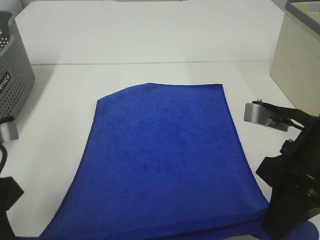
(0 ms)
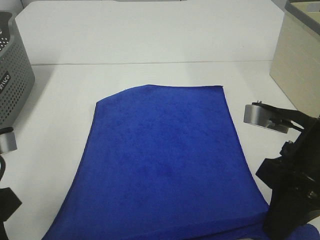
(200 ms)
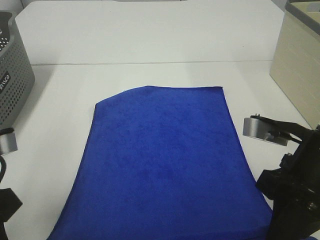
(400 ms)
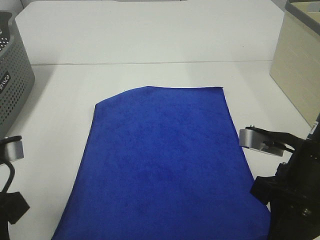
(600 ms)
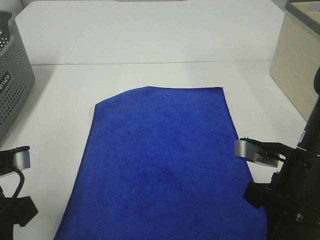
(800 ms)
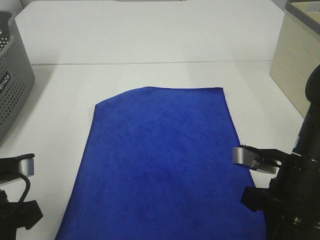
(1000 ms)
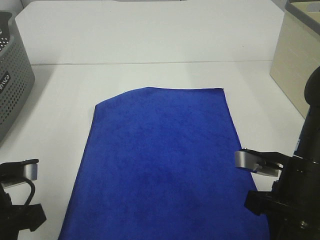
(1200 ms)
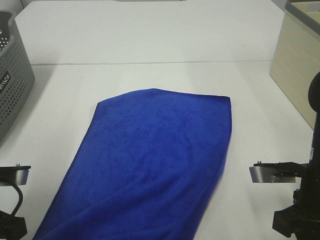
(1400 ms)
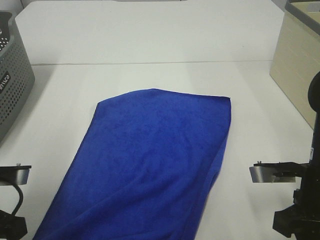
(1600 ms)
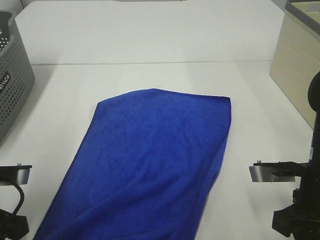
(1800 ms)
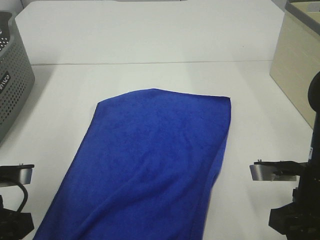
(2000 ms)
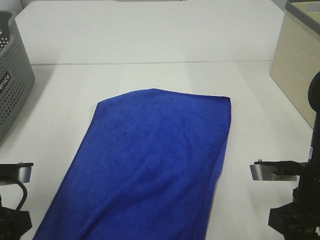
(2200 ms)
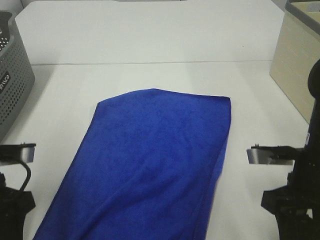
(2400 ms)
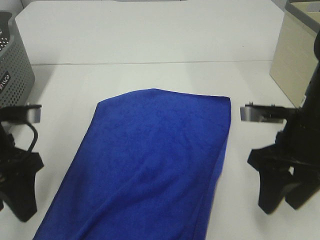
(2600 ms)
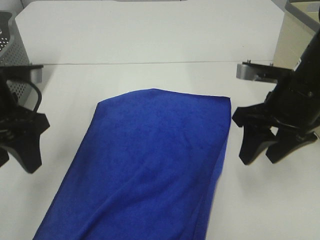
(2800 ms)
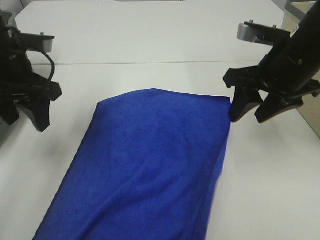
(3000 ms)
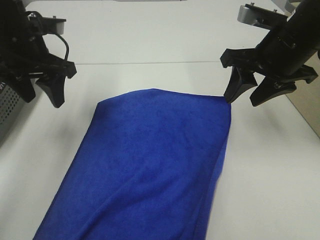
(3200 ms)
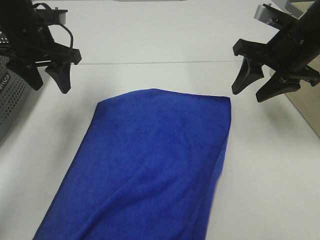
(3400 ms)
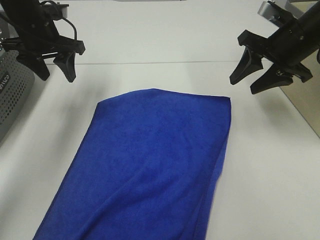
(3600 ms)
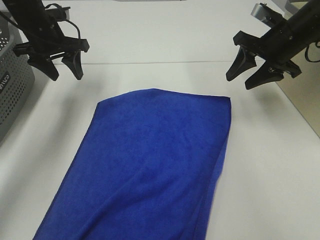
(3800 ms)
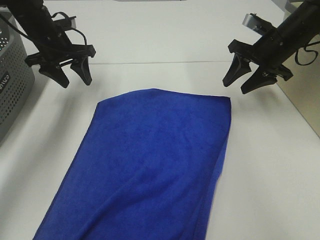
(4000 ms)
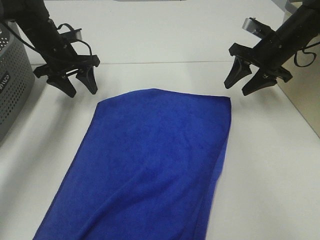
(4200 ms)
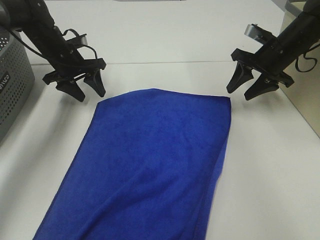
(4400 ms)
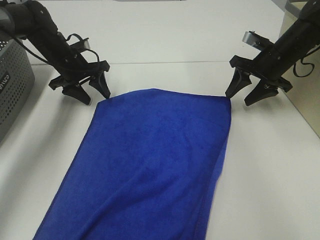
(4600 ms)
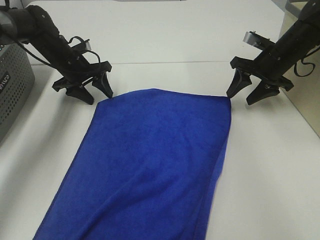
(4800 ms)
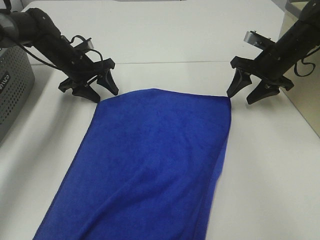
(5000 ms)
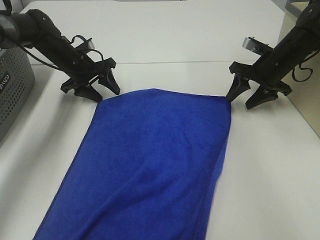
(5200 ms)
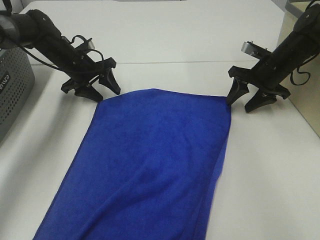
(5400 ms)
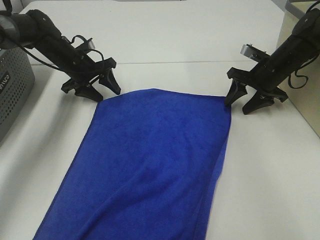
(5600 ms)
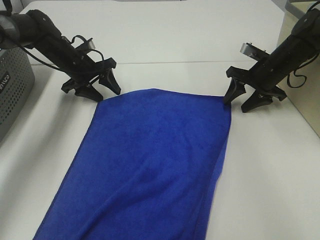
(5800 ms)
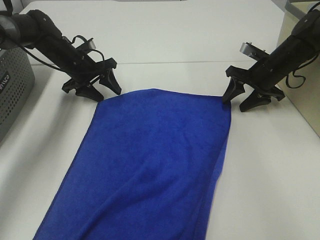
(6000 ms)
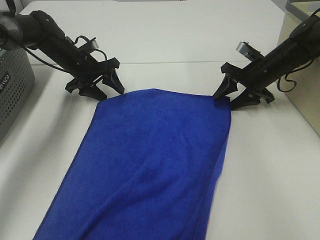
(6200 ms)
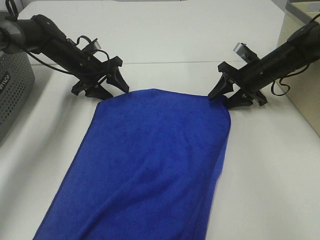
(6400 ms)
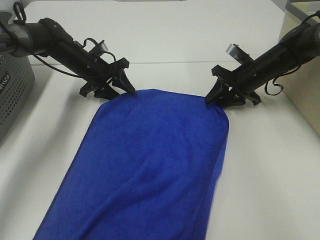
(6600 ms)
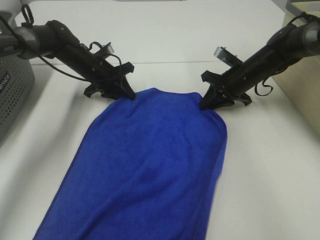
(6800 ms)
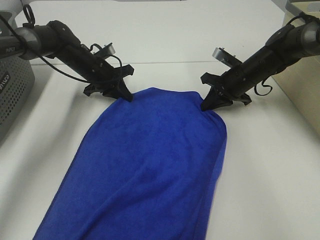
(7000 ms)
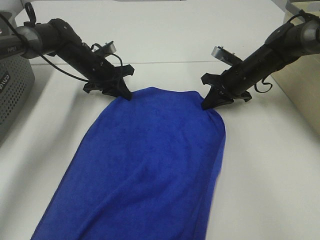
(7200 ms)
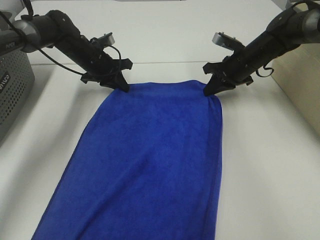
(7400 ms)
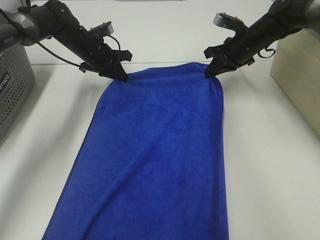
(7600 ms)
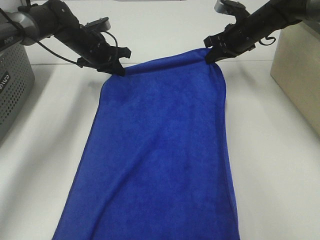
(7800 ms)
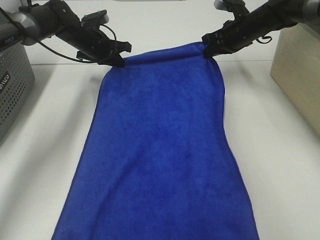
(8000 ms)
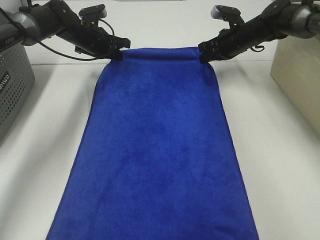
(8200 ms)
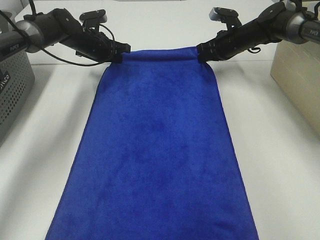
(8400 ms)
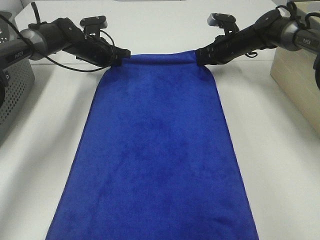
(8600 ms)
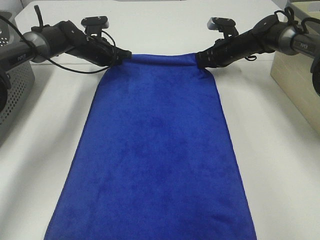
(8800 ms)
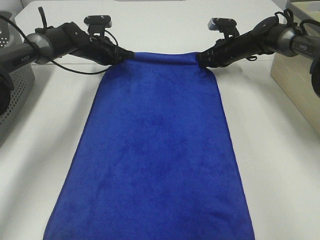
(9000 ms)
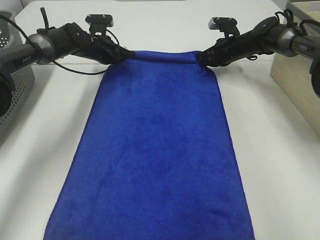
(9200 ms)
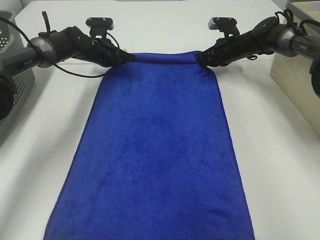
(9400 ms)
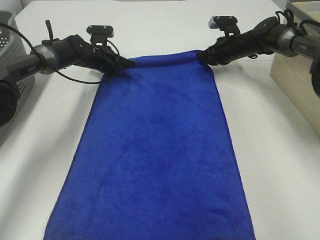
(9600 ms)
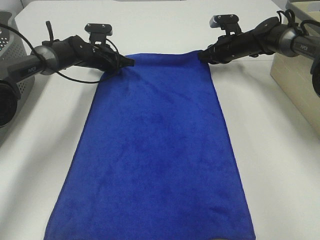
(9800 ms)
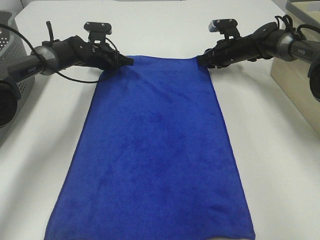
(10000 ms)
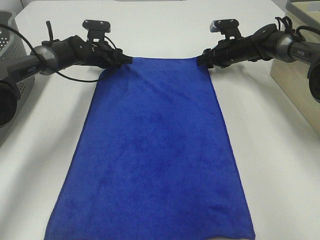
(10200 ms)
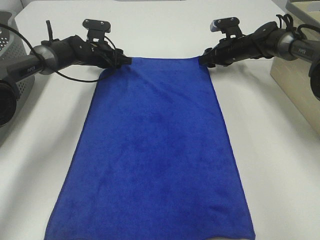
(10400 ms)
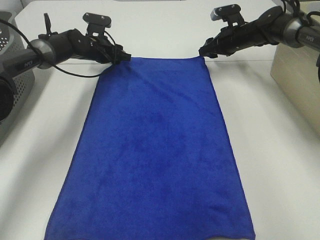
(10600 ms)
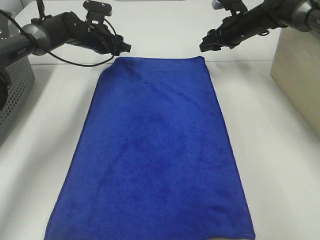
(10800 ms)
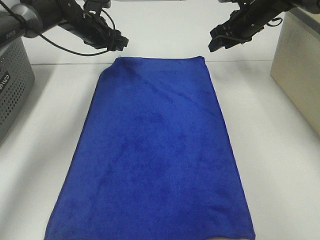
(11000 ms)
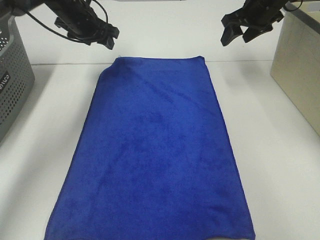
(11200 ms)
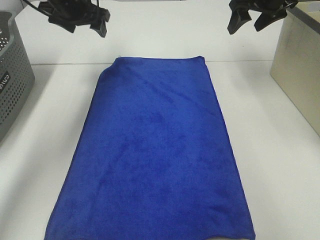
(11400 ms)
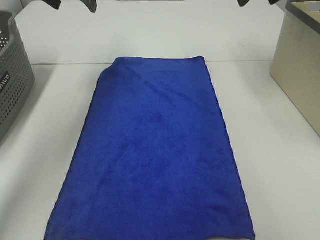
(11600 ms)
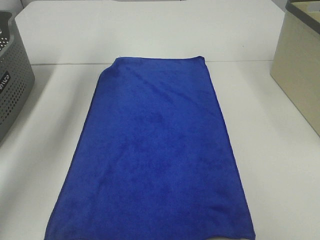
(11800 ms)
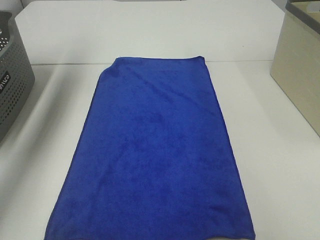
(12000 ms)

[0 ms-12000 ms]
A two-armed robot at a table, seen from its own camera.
Task of the whole recording: Remove the towel and place it.
Step, 0 ms to 3800 ms: Left hand:adjust the blue towel.
Step, 0 ms to 3800 ms: Right hand:adjust the blue towel.
0 ms to 1600 ms: Both grippers travel together downward, approximately 5 cm.
1600 ms to 3000 ms: The grippers both shift forward and upward by about 15 cm. The right gripper opens. The left gripper opens its fingers.
3000 ms to 4400 ms: The right gripper shifts roughly 20 cm forward, downward and to the right; the left gripper travels forward and downward by about 20 cm.
4400 ms to 6000 ms: The right gripper changes place by approximately 5 cm.
6000 ms to 7600 ms: The left gripper closes; the right gripper ends up about 10 cm from where it was, and closes up.
7600 ms to 9000 ms: The right gripper heads forward and downward, covering some 10 cm.
9000 ms to 10400 ms: The left gripper opens up; the right gripper opens.
10400 ms to 12000 ms: The right gripper moves upward and backward, about 35 cm; the left gripper is displaced upward and to the left by roughly 35 cm.

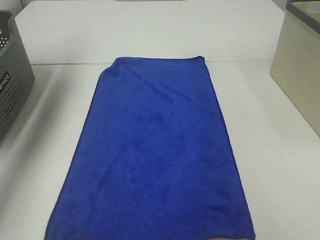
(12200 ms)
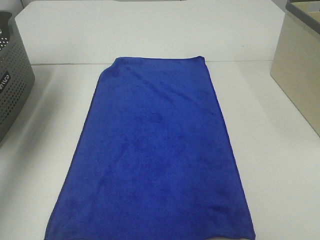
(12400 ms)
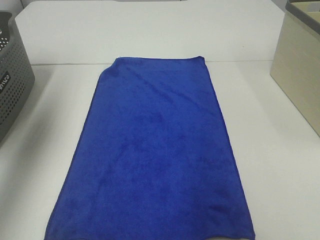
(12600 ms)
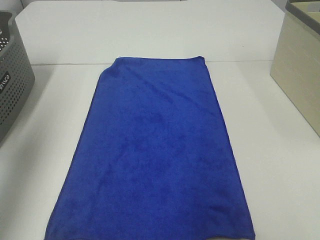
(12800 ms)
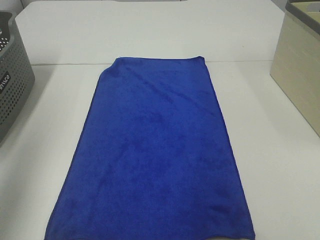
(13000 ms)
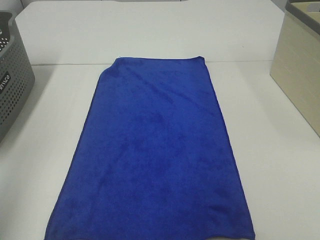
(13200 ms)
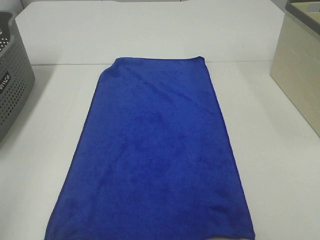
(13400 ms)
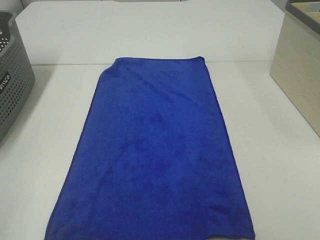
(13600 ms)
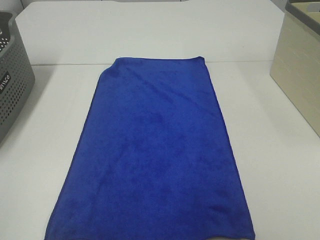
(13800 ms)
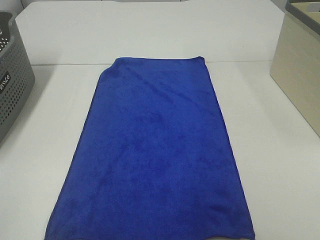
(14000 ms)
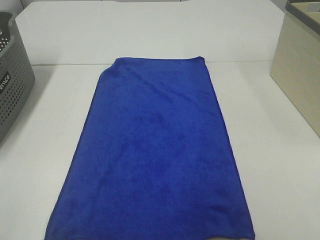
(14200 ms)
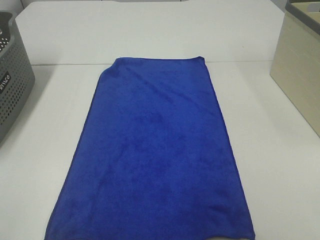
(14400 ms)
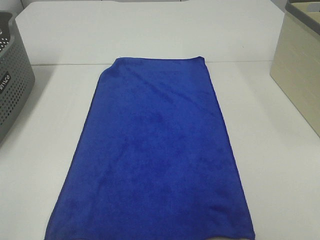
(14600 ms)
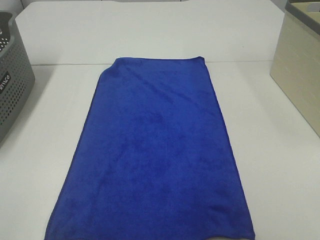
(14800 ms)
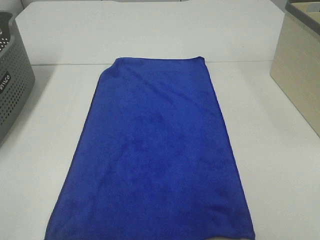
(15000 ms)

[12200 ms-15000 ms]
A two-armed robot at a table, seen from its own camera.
Task of the whole recording: Remove the towel and place it.
12200 ms to 13600 ms: The left gripper shifts about 40 cm backward.

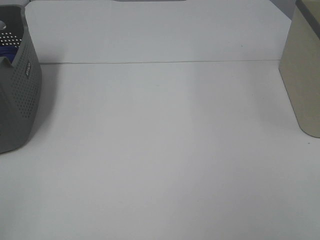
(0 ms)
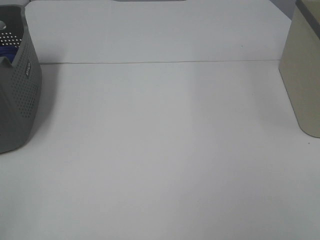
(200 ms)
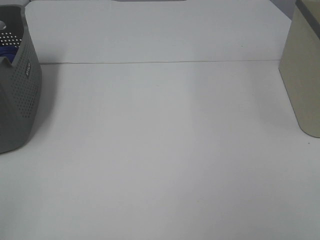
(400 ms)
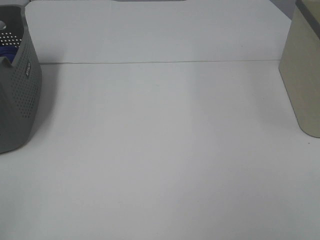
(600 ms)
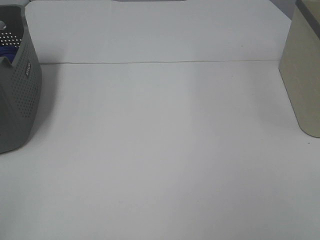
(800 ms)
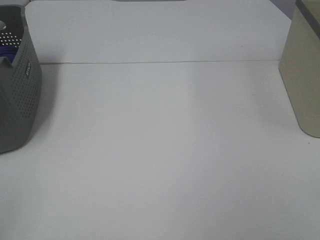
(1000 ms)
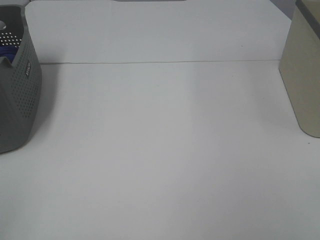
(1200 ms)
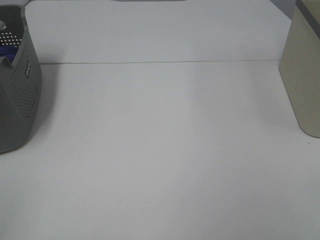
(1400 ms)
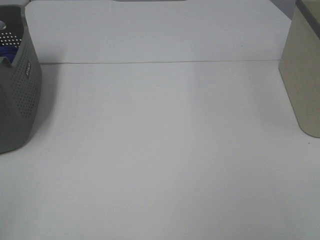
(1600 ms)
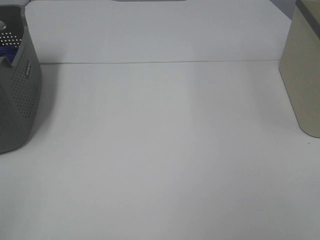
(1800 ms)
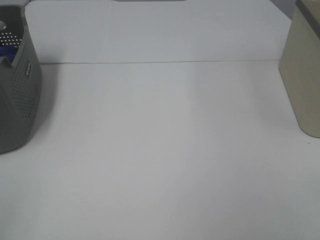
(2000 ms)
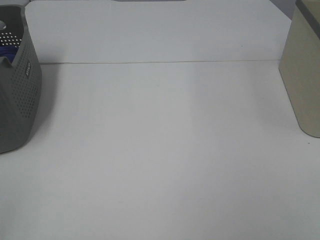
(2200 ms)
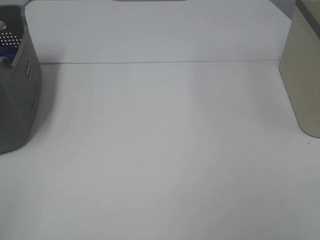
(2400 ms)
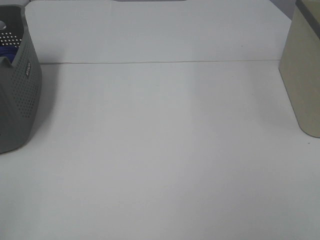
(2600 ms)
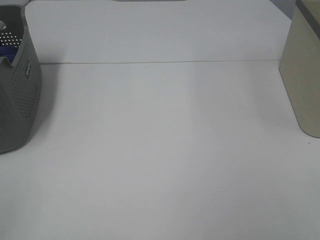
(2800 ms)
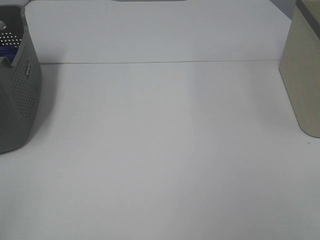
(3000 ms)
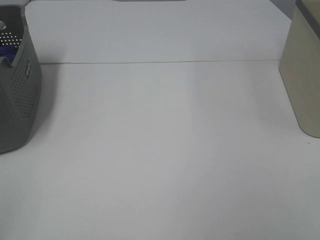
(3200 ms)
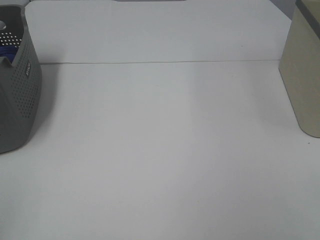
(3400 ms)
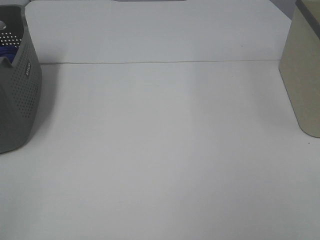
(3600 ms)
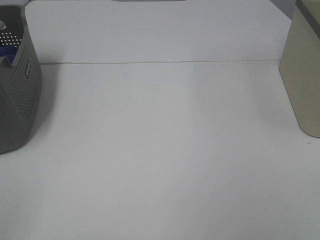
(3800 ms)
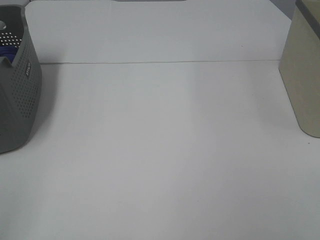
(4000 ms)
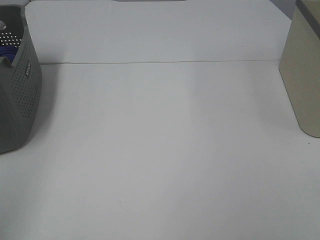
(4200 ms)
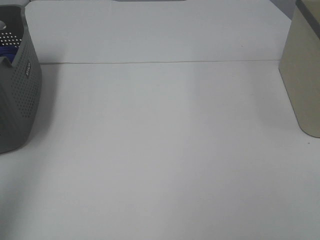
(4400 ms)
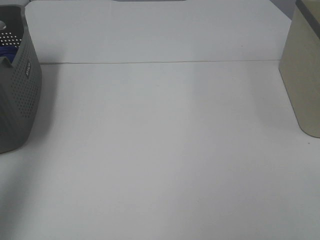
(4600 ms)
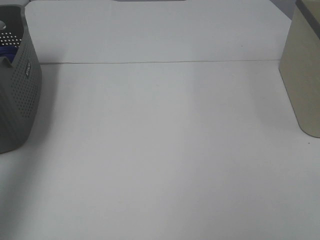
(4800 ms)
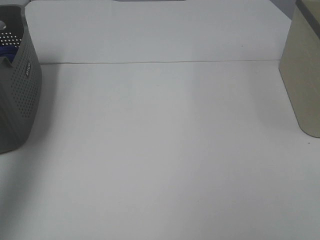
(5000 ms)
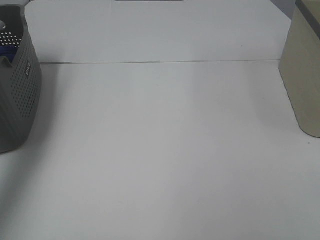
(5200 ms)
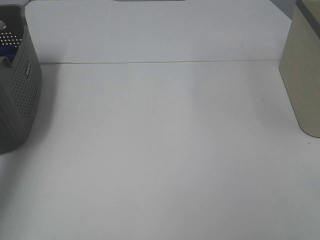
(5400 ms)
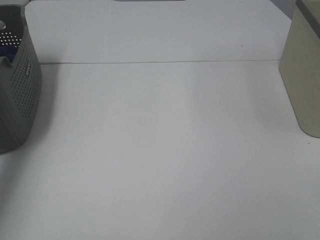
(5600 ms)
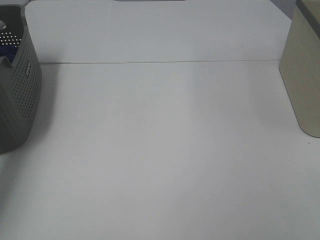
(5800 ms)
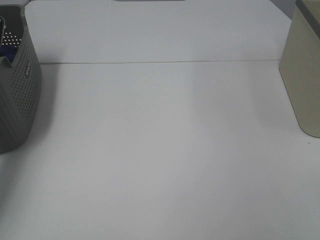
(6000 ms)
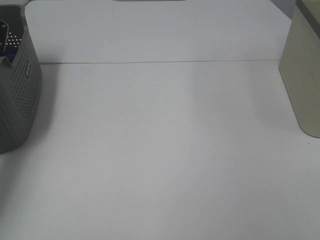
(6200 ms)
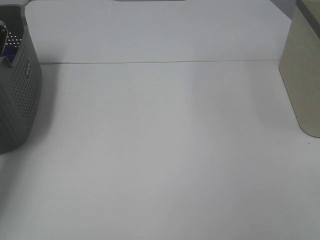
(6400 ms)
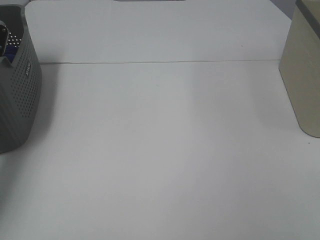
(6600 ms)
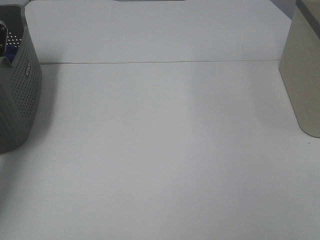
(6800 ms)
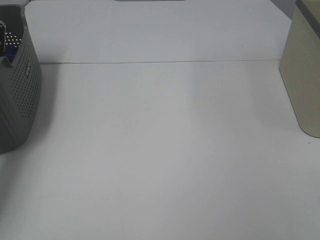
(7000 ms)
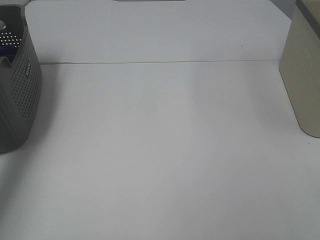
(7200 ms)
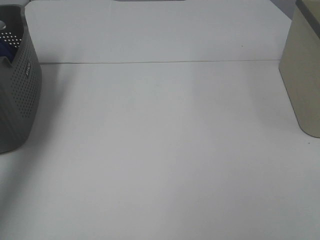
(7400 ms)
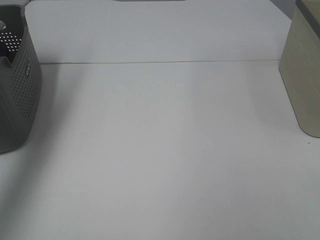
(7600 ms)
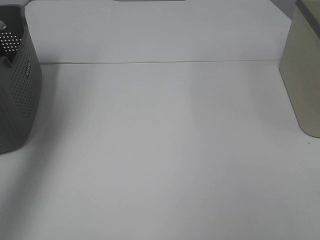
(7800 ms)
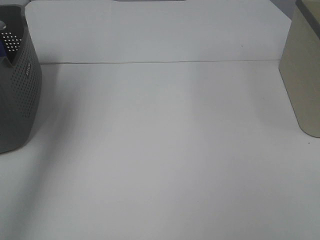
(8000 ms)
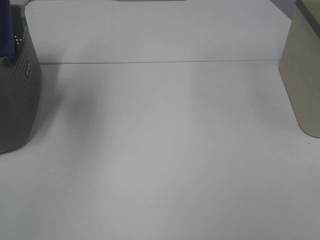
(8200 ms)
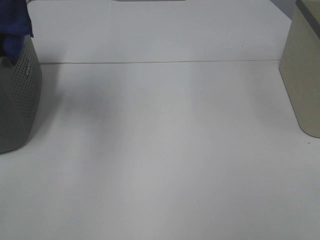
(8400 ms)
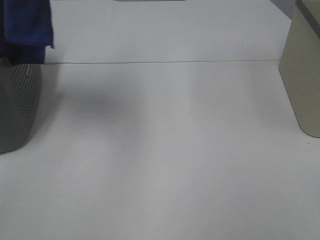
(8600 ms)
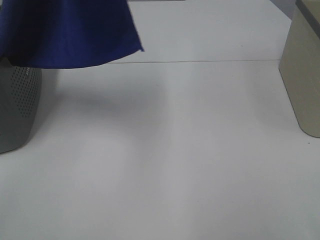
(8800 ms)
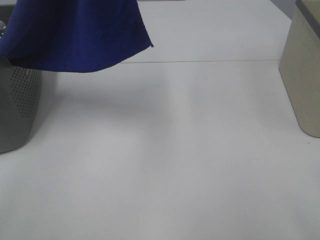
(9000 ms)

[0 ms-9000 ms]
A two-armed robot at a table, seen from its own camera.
Task of the whole recording: Remove the towel and place it.
0 ms to 3000 ms: Neither gripper changes place.
3000 ms to 4400 ms: The left gripper heads upward and forward, covering approximately 20 cm.
4400 ms to 6000 ms: The left gripper goes some 40 cm forward and downward.
6000 ms to 7600 ms: The left gripper shifts approximately 25 cm upward and backward, and closes its fingers.
7600 ms to 9000 ms: The left gripper shifts approximately 25 cm to the right. Meanwhile the right gripper ends up some 5 cm from where it was.
